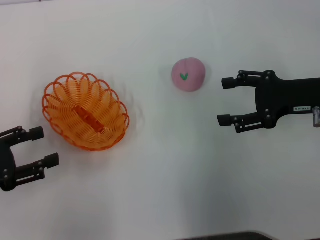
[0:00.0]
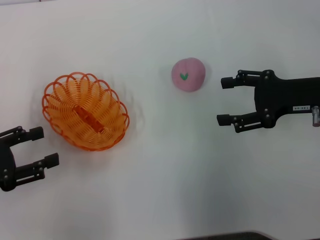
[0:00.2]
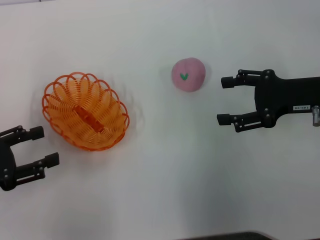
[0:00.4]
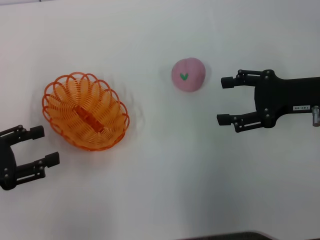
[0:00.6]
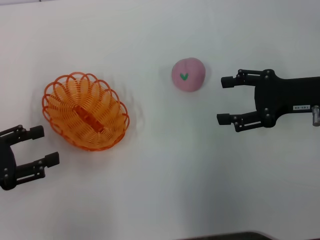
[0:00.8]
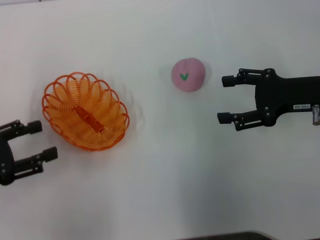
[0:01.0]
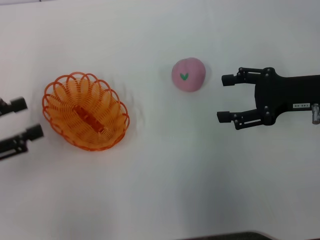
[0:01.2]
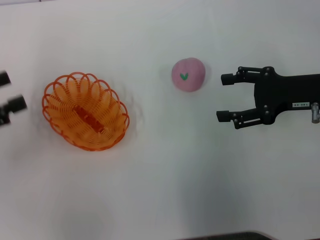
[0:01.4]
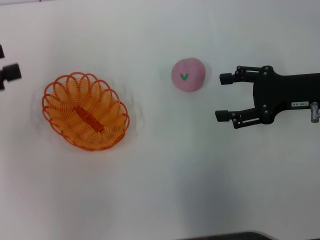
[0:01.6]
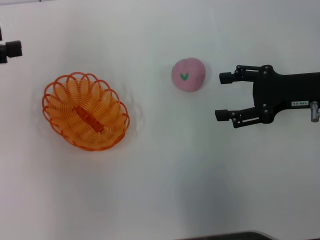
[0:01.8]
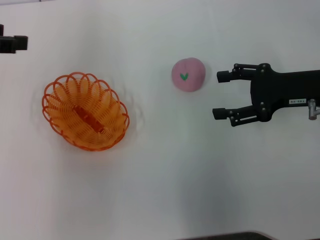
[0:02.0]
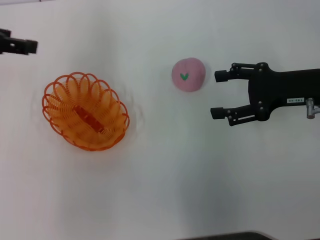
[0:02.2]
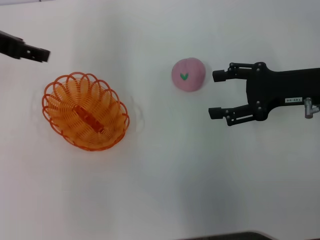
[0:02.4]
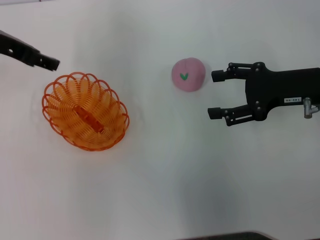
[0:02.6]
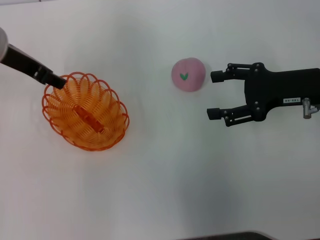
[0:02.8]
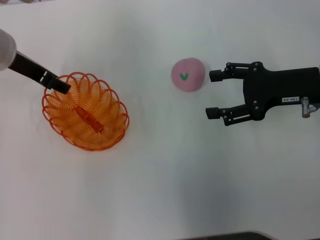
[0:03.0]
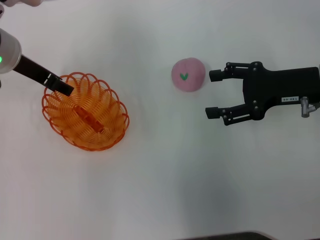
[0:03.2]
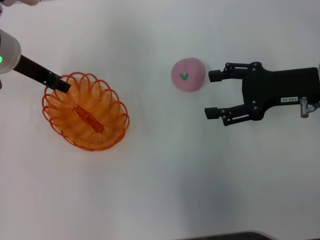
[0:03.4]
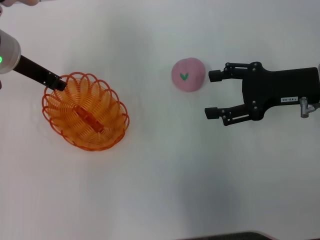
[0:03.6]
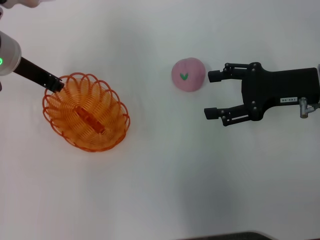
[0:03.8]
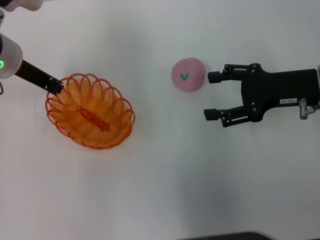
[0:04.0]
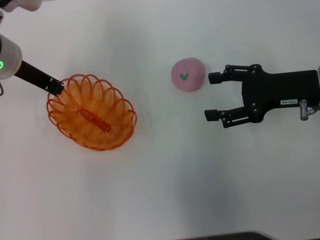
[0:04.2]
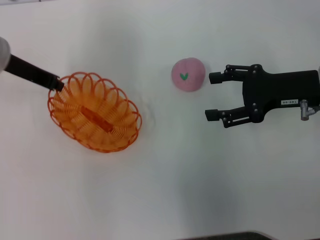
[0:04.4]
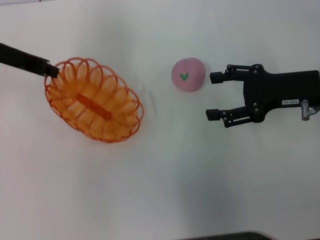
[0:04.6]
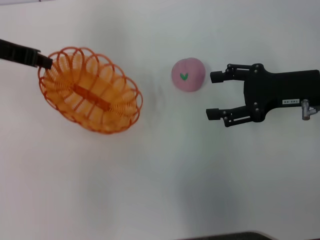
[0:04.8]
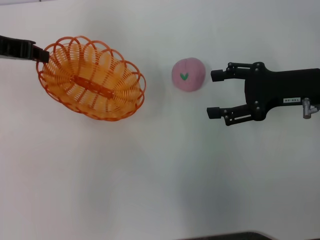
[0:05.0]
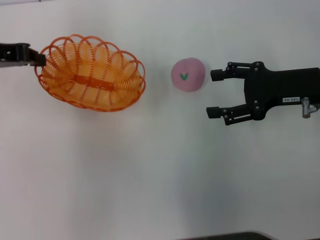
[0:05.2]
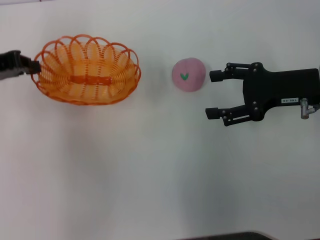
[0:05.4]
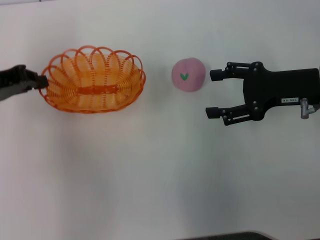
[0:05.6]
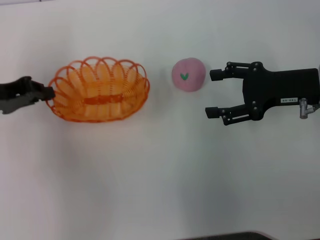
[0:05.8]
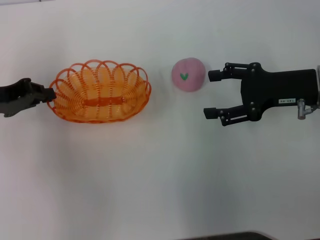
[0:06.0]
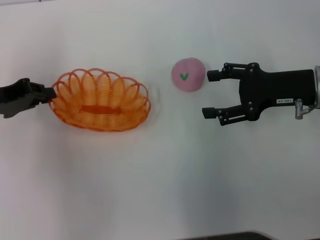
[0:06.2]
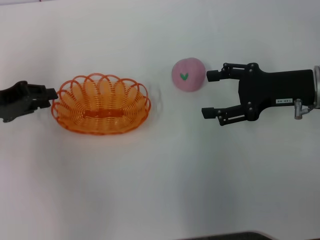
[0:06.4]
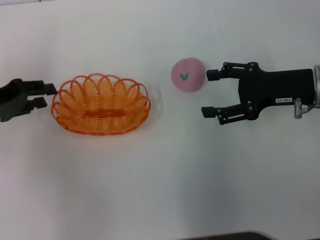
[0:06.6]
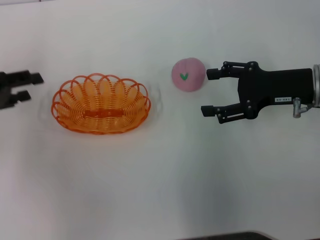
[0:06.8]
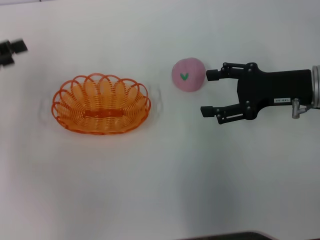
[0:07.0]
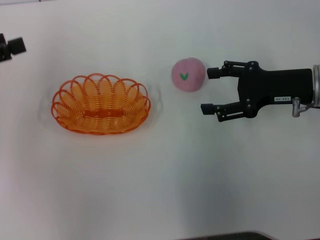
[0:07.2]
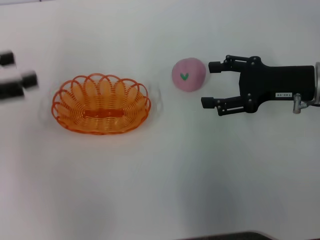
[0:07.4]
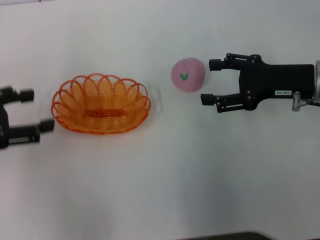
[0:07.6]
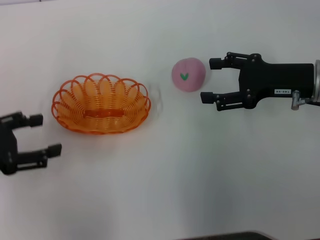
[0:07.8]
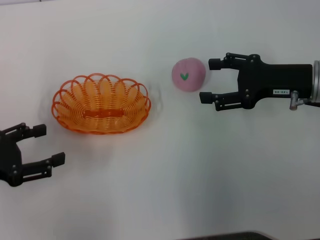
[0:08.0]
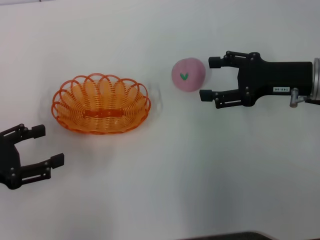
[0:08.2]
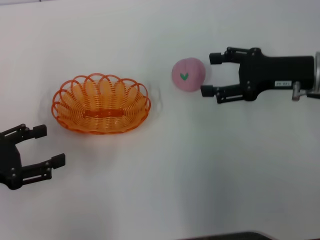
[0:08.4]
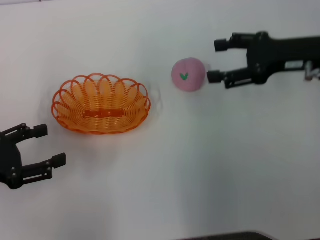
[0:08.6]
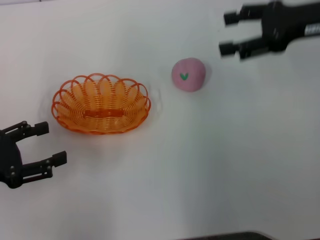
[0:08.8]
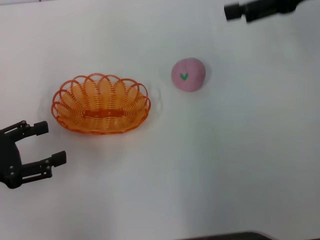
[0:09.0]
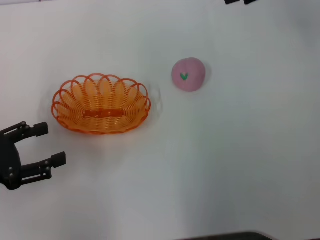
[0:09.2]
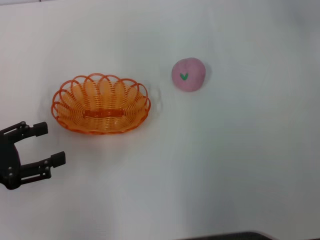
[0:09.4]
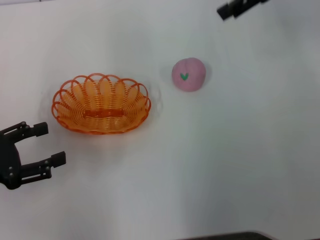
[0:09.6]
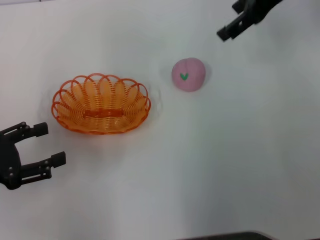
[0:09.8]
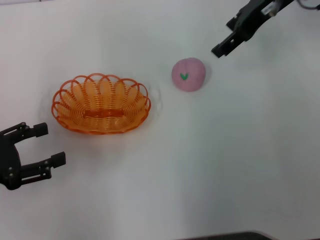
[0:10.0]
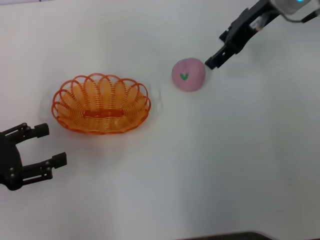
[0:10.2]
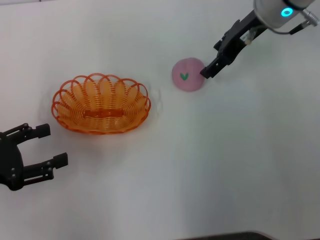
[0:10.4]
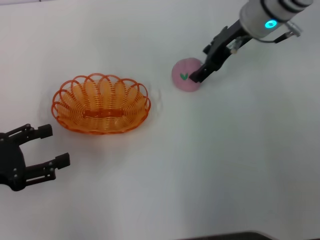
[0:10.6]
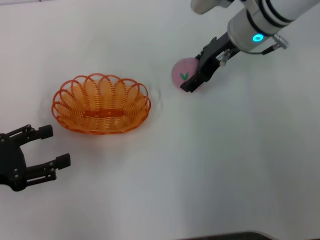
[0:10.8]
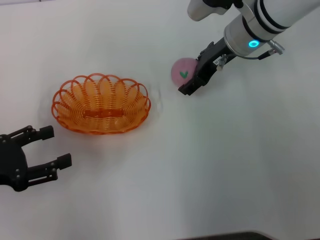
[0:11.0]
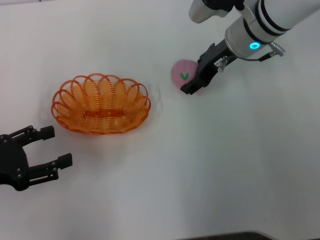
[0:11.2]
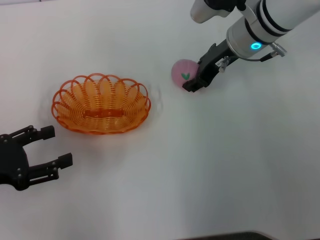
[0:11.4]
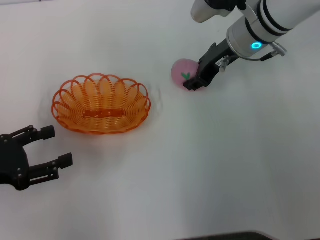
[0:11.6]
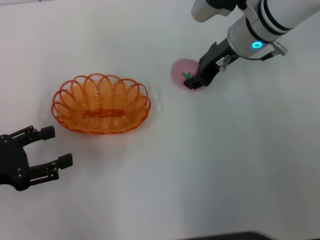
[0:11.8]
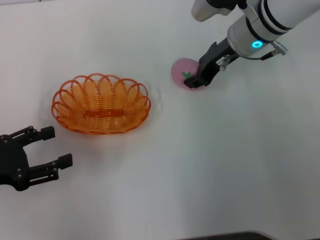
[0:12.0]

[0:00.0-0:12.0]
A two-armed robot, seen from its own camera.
Step, 0:00.0 to 0:04.4: Pick up the basket with the left gripper.
Step, 0:04.8 to 0:06.6: Place the basket in the center of view with the left gripper.
0:00.0 to 0:01.6: The left gripper moves upward and forward, about 10 cm.
0:01.6 to 0:03.0: The left gripper heads to the right and forward, covering approximately 20 cm.
0:03.0 to 0:04.4: The left gripper closes its fingers.
0:04.4 to 0:06.0: The left gripper travels to the left and backward by about 10 cm.
0:06.0 to 0:07.6: The left gripper moves backward, approximately 5 cm, and opens up.
0:07.6 to 0:09.0: The right gripper shifts approximately 15 cm upward and forward; the left gripper travels downward by some 5 cm.
0:09.0 to 0:10.4: The right gripper moves to the left, downward and forward, about 15 cm.
0:10.4 to 0:12.0: The right gripper moves approximately 5 cm, and closes its fingers.

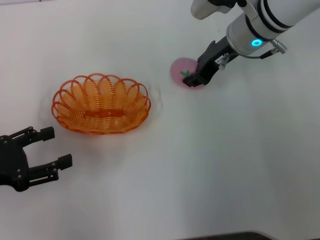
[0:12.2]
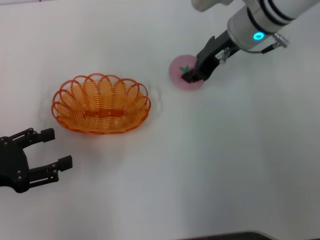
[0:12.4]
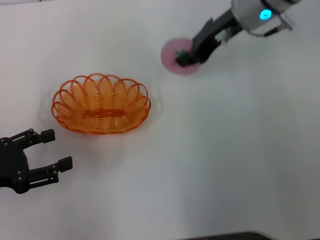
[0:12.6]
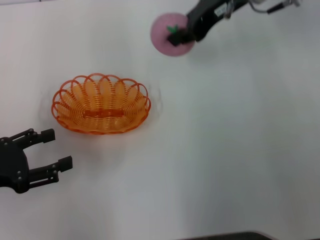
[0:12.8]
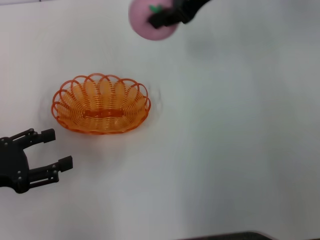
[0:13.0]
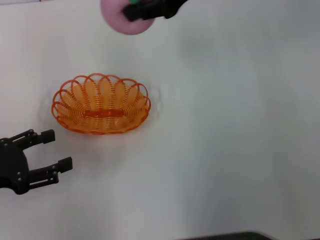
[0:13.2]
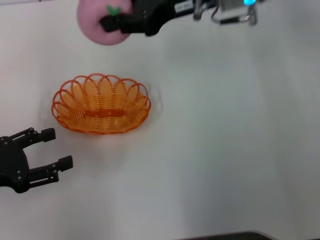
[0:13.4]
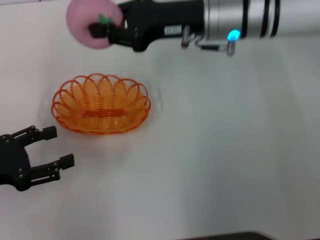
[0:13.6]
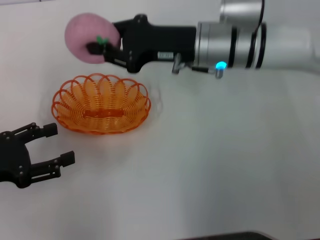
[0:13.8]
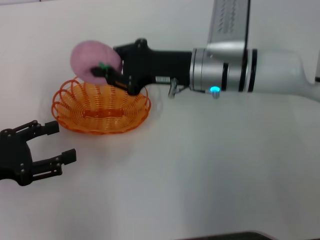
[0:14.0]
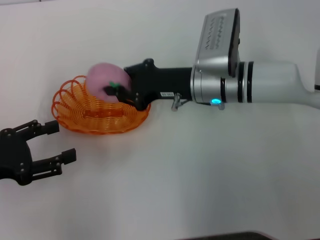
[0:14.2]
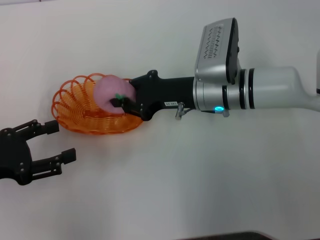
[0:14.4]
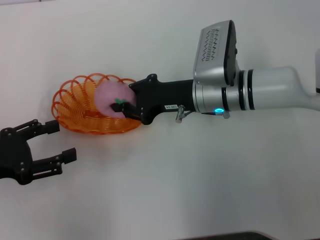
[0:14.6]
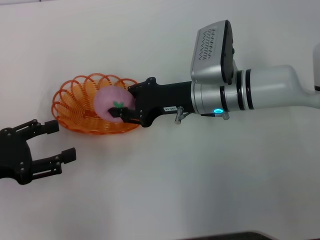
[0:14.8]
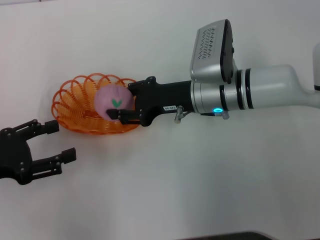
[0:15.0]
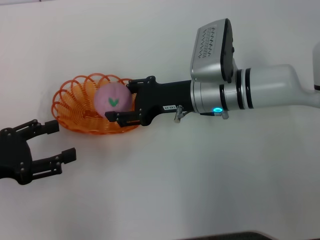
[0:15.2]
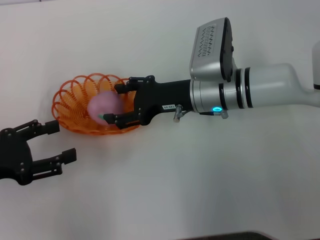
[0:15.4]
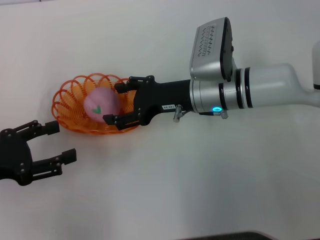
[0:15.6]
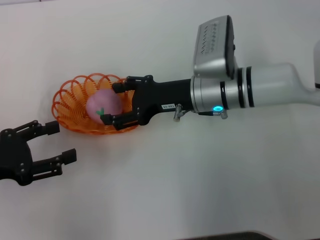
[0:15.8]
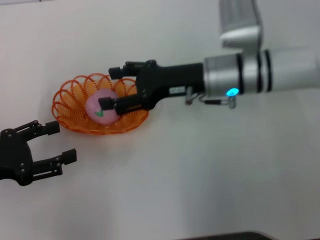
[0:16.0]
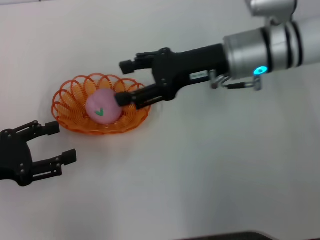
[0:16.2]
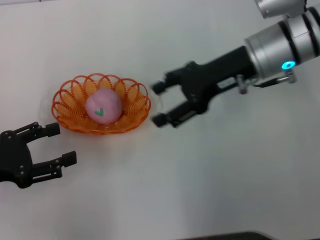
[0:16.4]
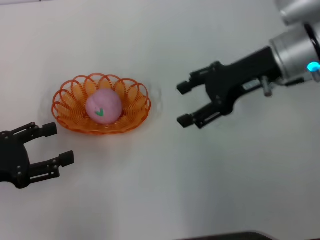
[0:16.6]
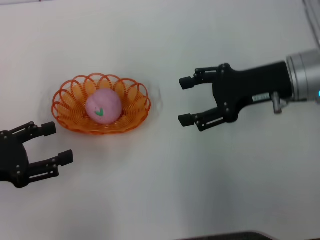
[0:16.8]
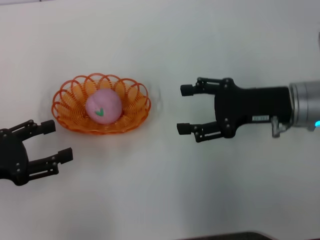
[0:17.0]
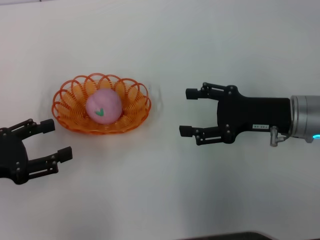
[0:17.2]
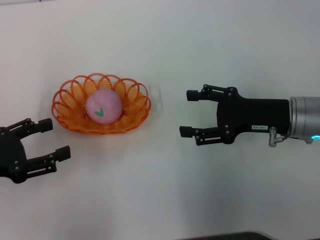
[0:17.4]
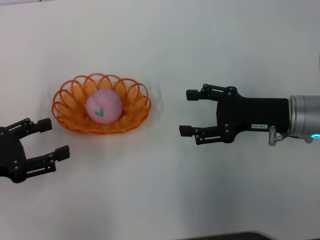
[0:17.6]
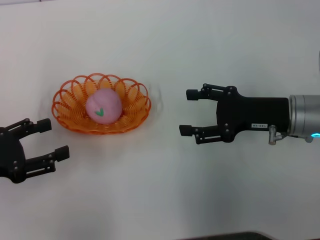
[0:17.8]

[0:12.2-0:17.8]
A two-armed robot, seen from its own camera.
Step, 0:12.6 to 0:16.0: Place the peach into the basket with the right gripper.
0:12.2 to 0:13.6: The right gripper reaches about 15 cm upward, then returns.
0:13.6 to 0:15.0: The right gripper heads downward, covering about 10 cm.
0:15.0 to 0:16.4: The right gripper shifts roughly 10 cm upward and to the right, and opens up.
0:16.4 to 0:17.8: The right gripper moves downward, backward and to the right, about 15 cm.

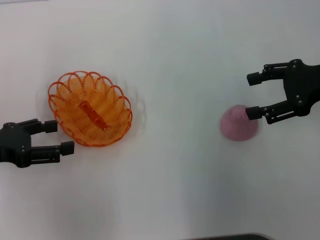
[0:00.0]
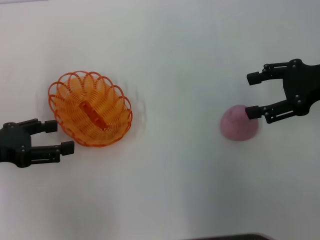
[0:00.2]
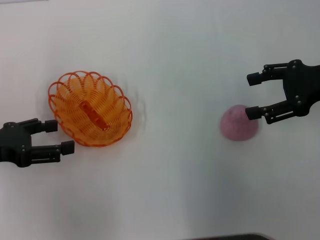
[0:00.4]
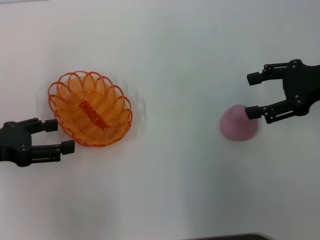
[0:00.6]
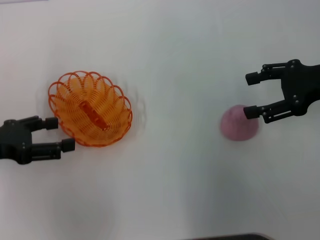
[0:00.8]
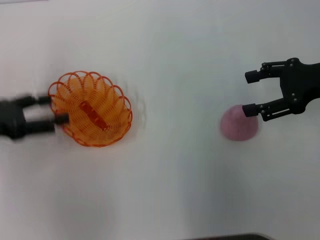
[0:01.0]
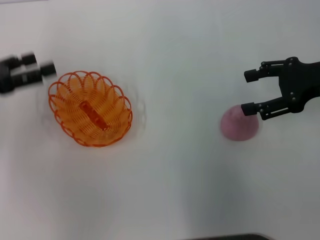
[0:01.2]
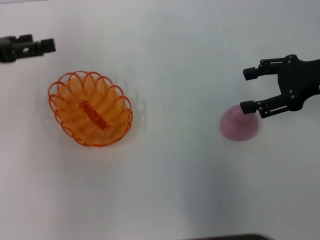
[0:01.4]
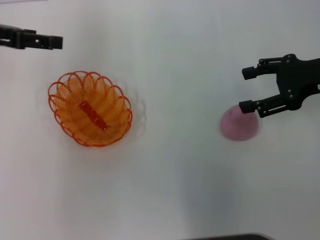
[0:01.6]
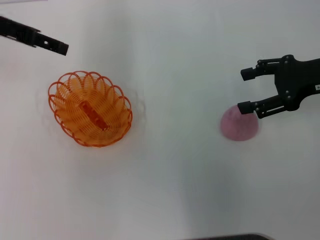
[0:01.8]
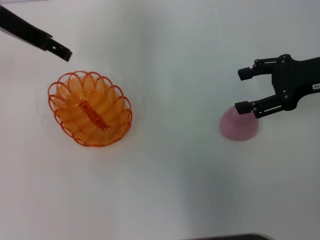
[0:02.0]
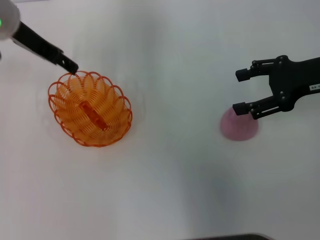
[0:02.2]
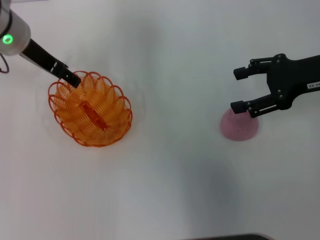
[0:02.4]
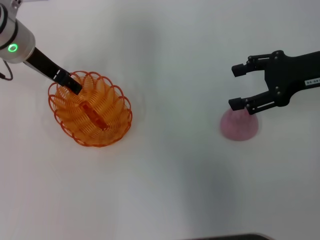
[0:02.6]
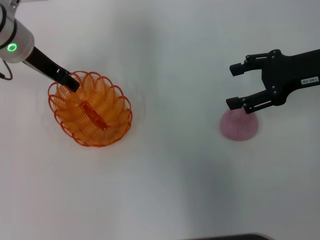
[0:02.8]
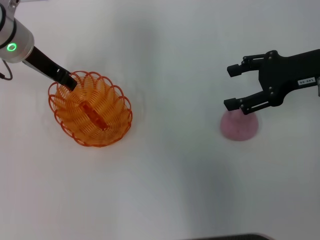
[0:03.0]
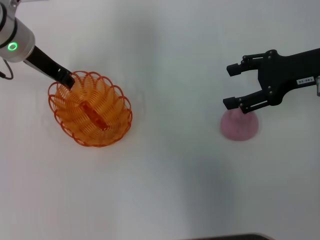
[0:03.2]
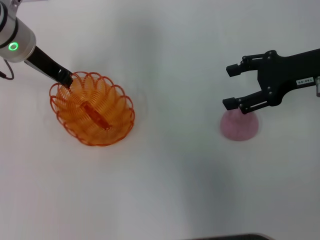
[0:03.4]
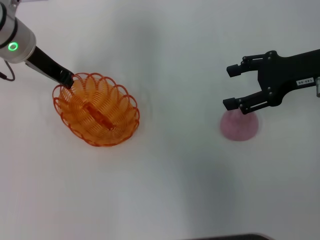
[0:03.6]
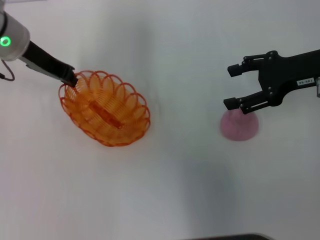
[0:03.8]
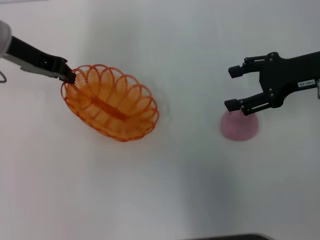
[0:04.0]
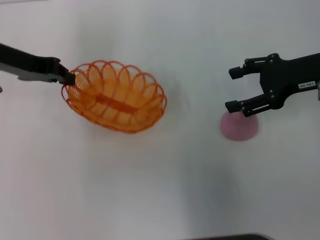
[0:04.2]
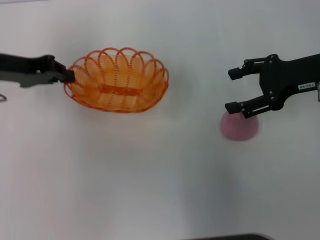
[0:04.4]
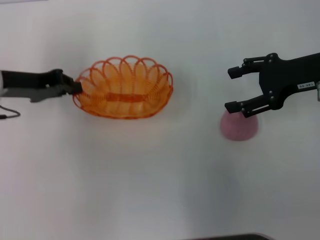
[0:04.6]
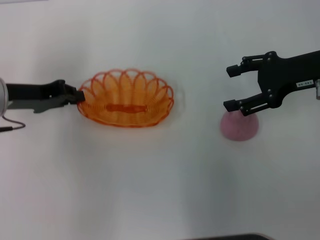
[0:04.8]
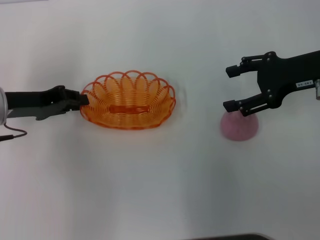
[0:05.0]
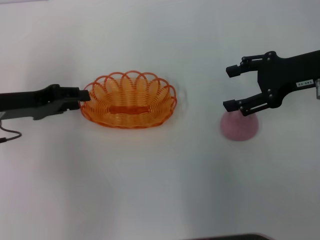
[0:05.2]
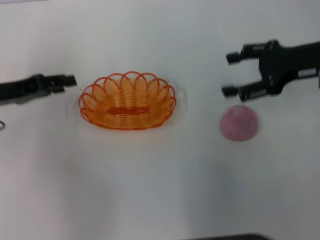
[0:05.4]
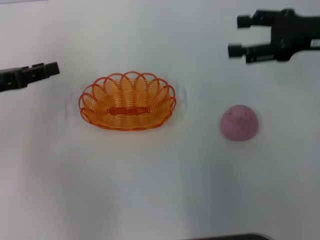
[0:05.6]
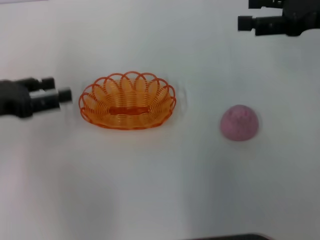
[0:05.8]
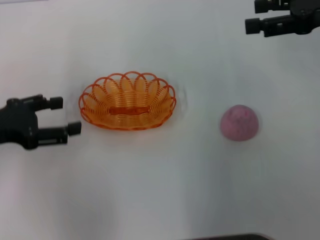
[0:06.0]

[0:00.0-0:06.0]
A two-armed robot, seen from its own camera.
Step, 0:00.0 to 0:03.8: Pick up the basket with the left gripper.
Step, 0:04.0 to 0:05.2: Place the basket in the center of view with the left gripper.
0:00.0 to 0:01.6: The left gripper shifts some 15 cm forward and upward.
0:01.6 to 0:03.0: The left gripper shifts some 10 cm to the right and downward.
0:03.0 to 0:04.4: The left gripper shifts approximately 5 cm to the left, and closes.
0:04.4 to 0:06.0: The left gripper moves backward, approximately 10 cm, and opens; the right gripper is displaced upward by approximately 5 cm.
